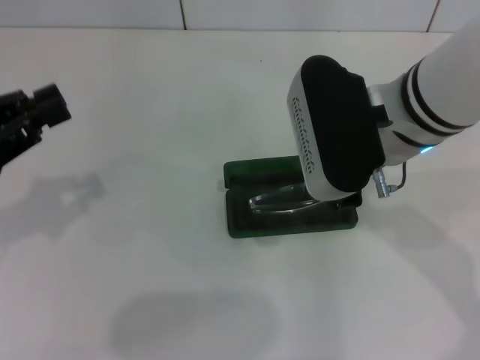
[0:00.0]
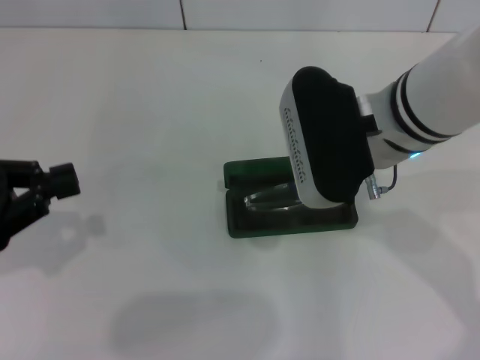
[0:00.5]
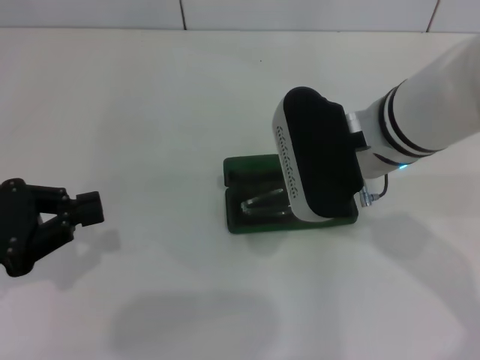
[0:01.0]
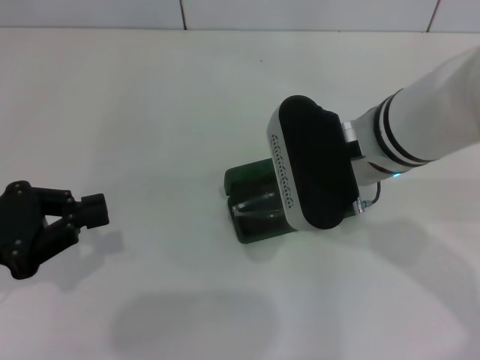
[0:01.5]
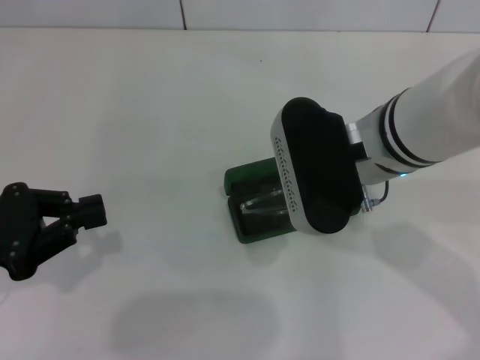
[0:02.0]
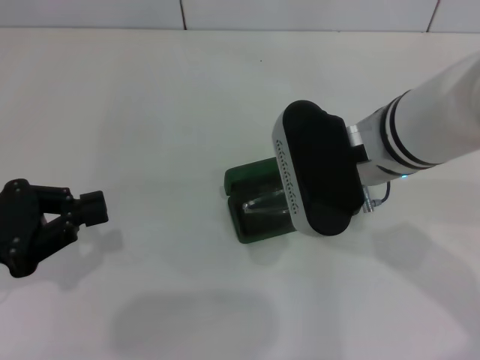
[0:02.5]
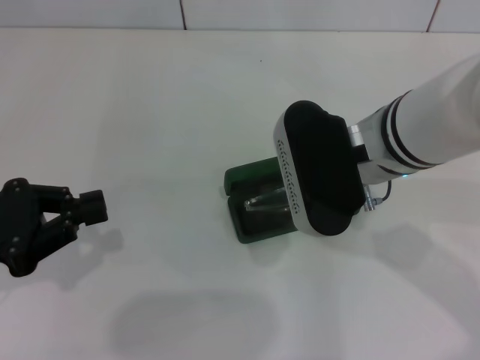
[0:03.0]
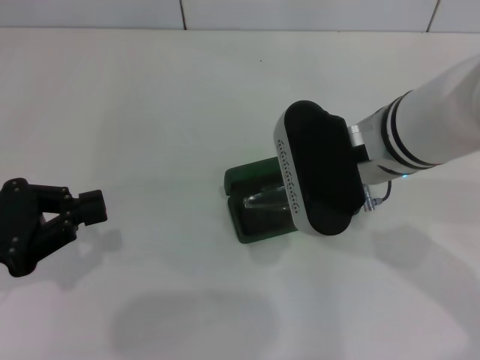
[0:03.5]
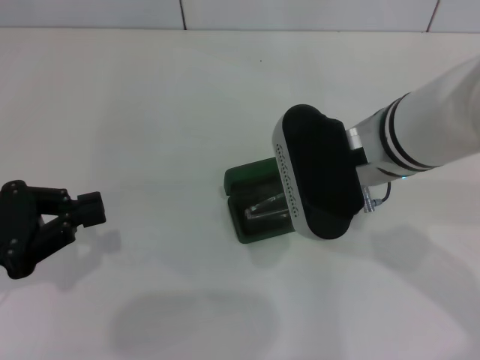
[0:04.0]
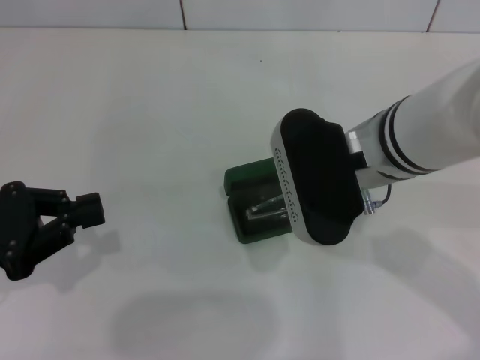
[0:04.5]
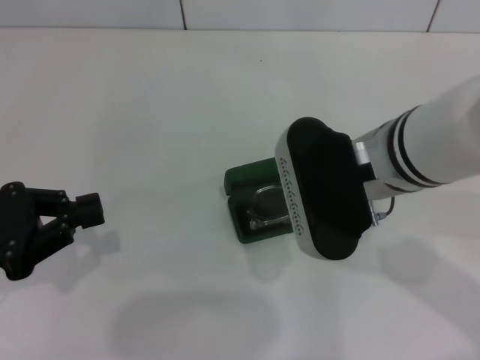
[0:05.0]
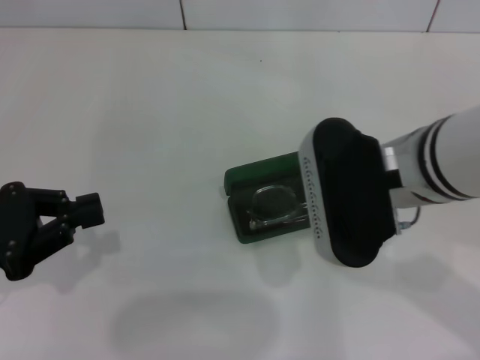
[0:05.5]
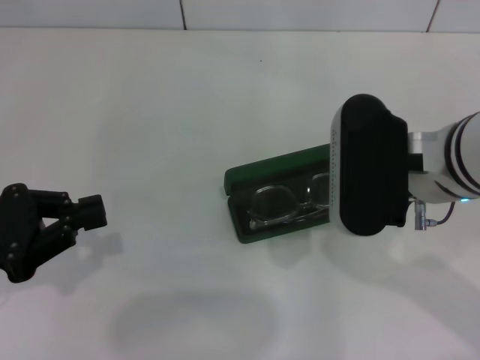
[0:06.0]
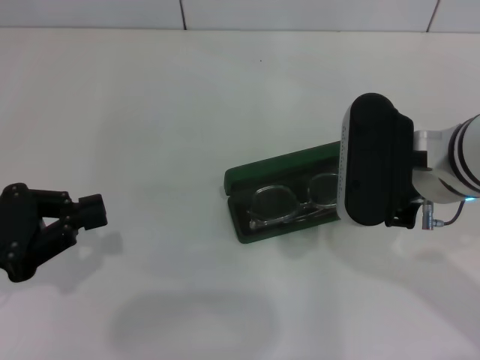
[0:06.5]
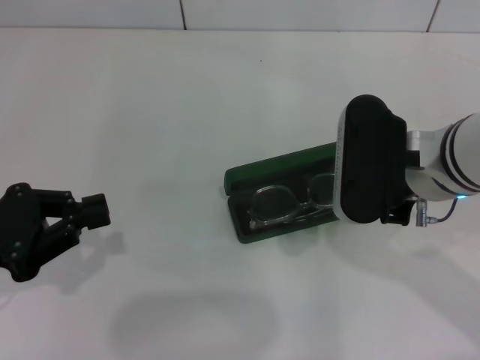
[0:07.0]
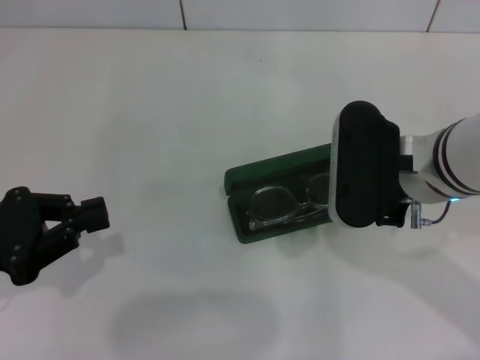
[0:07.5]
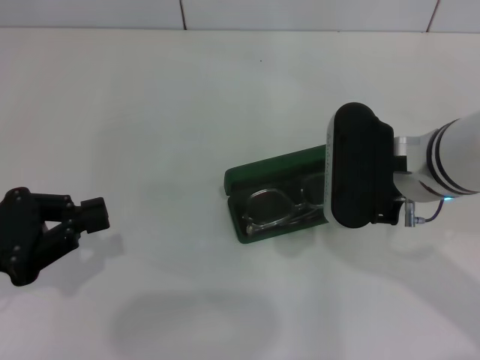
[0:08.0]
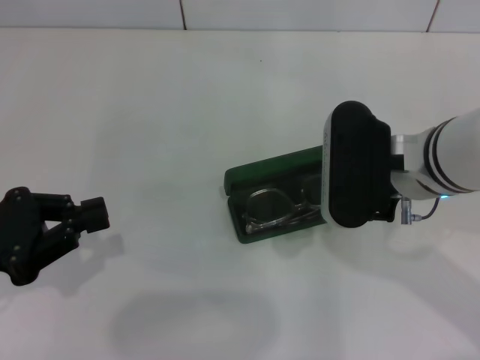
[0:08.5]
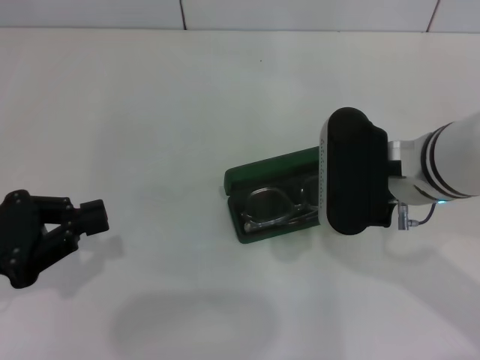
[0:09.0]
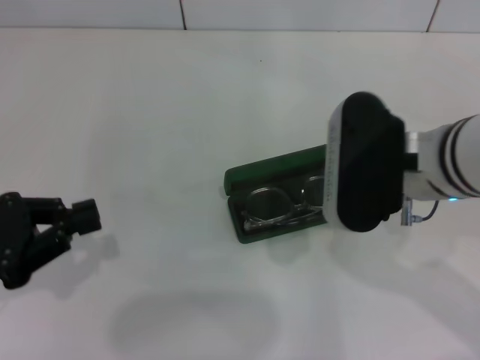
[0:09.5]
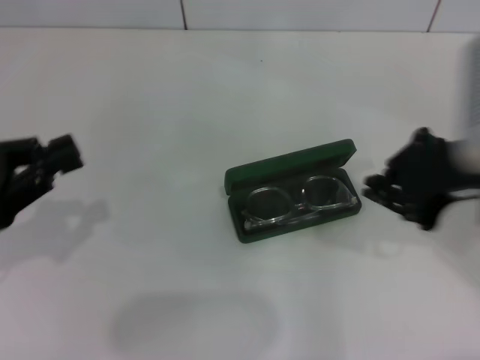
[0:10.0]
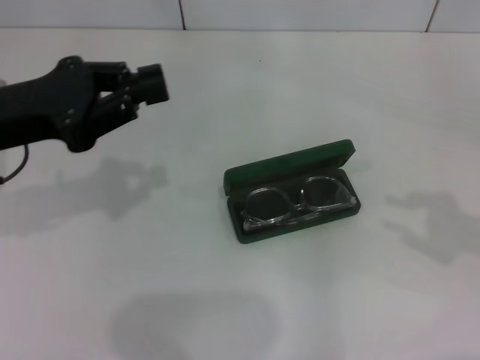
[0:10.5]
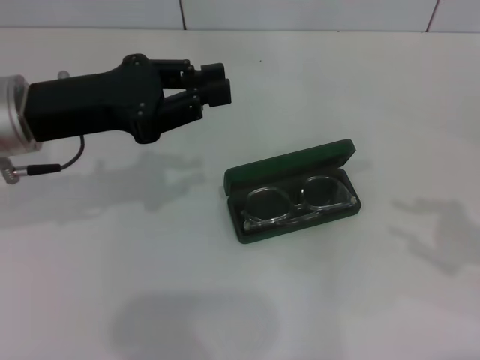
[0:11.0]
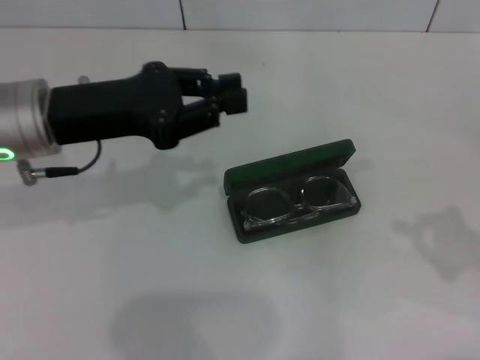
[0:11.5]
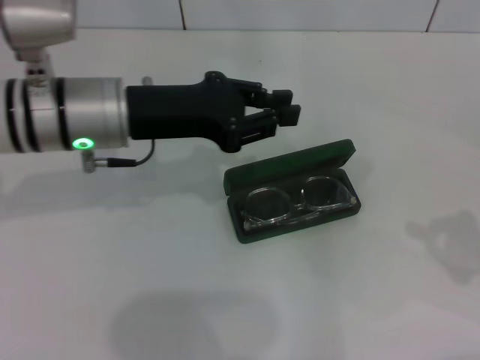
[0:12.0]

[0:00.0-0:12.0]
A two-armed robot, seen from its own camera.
Step, 0:00.0 to 0:09.0: Put the glasses into the case with your right hand.
0:00.0 to 0:02.0: The grippers move only a little.
0:02.0 to 0:04.0: The two grippers keep their place.
0:04.0 to 0:06.0: The grippers stay close to where they were, moving slightly.
0:06.0 to 0:08.0: The grippers make only small movements.
0:08.0 to 0:10.0: The right gripper heads upward and to the right, covering approximately 10 cm.
0:10.0 to 0:12.0: The right gripper heads to the right and downward, covering some 20 cm, and opens, then closes again. Meanwhile the left gripper moves to the right and forward, approximately 20 cm.

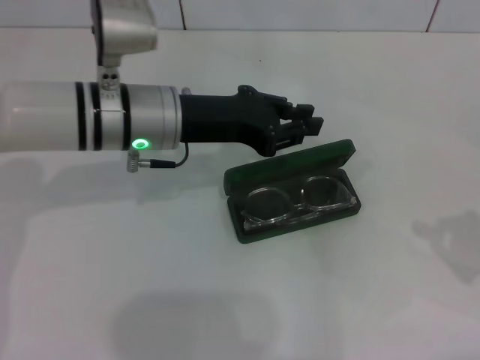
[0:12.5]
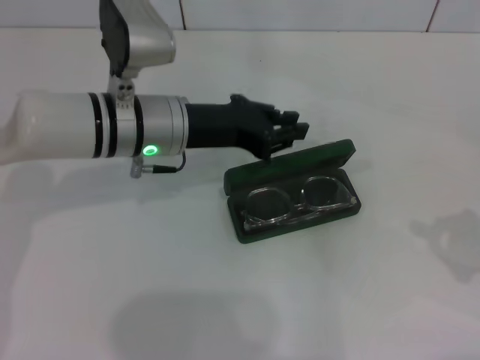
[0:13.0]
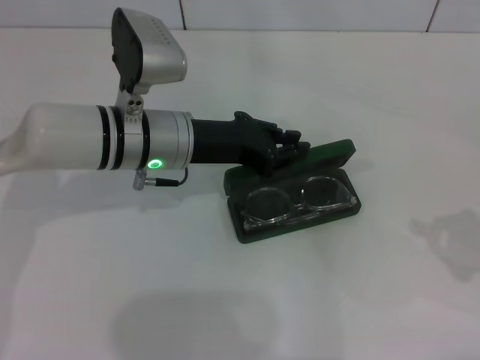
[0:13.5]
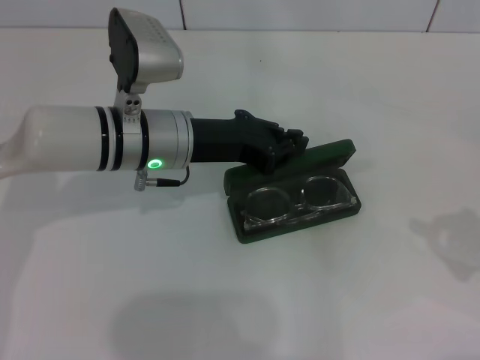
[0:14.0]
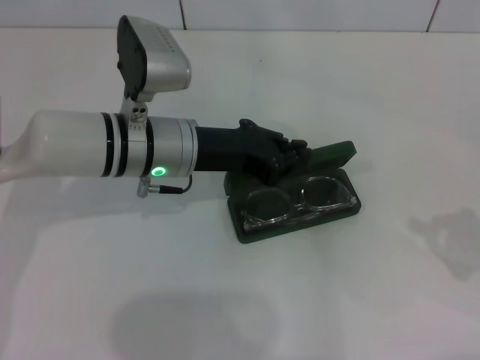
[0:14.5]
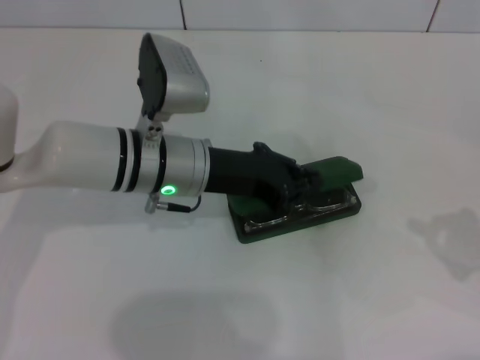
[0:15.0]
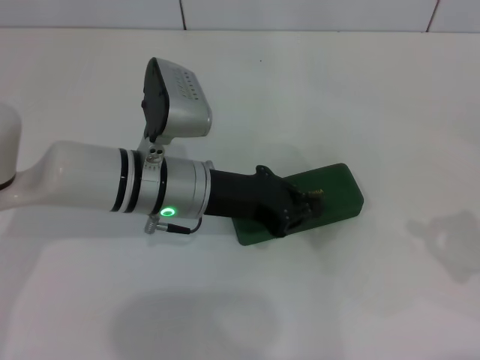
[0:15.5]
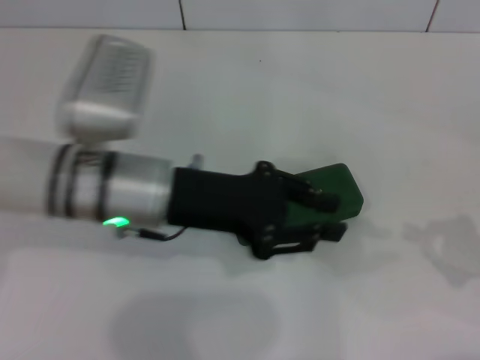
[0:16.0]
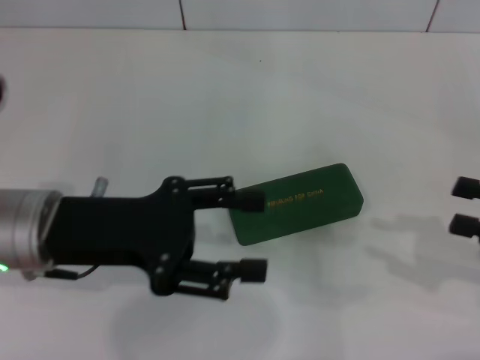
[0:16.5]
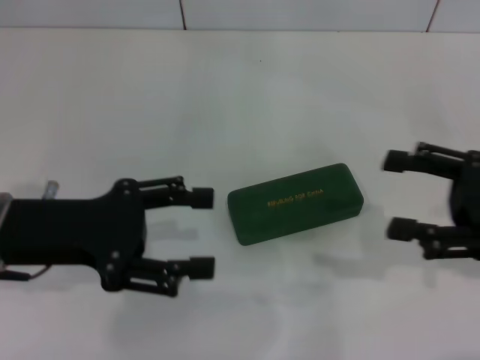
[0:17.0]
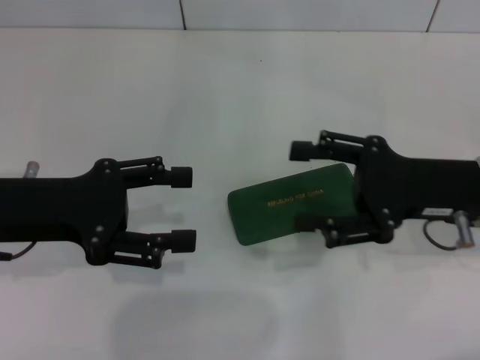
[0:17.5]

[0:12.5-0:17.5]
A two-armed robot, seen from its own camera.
Step, 0:12.5 to 0:15.0: Close the glasses case with your left hand.
0:12.5 to 0:15.0: The grippers move only a little.
0:15.0 to 0:17.5: The right gripper heads to the left and forward, covering approximately 15 cm, and opens up. Meanwhile the left gripper is displaced to the left and backward by approximately 15 cm, and opens its fingers.

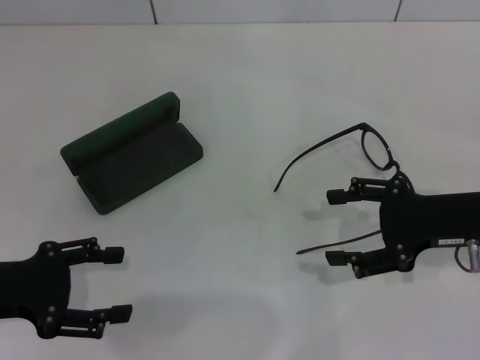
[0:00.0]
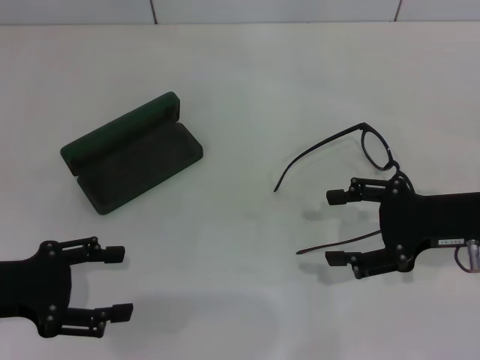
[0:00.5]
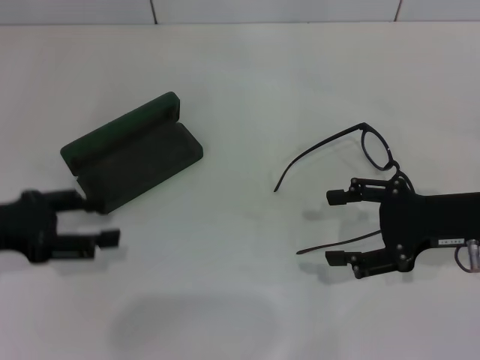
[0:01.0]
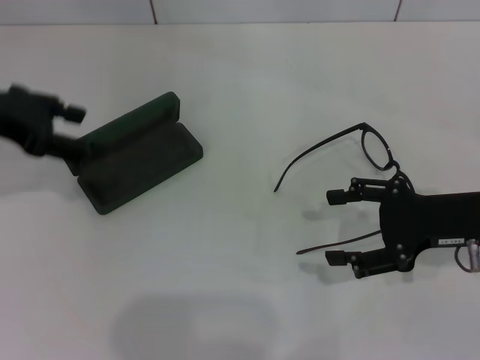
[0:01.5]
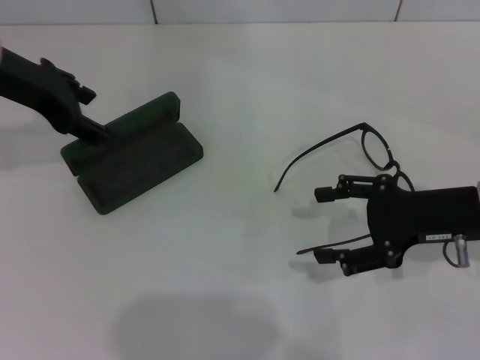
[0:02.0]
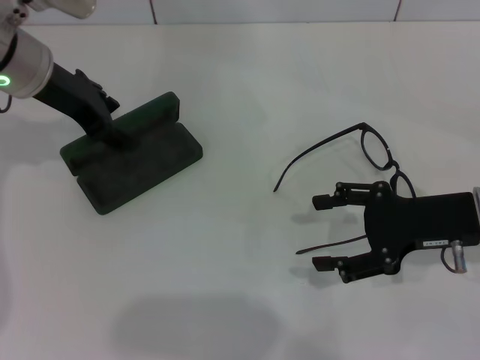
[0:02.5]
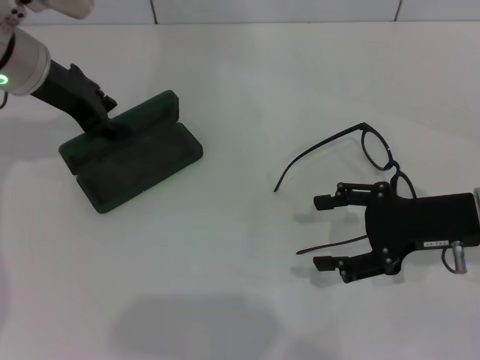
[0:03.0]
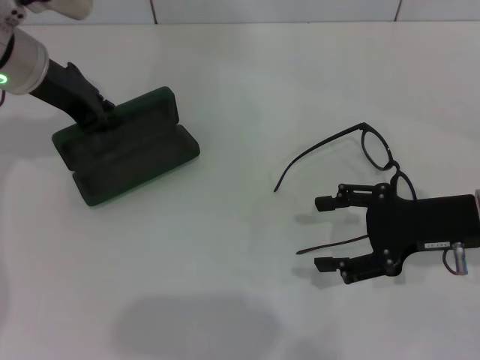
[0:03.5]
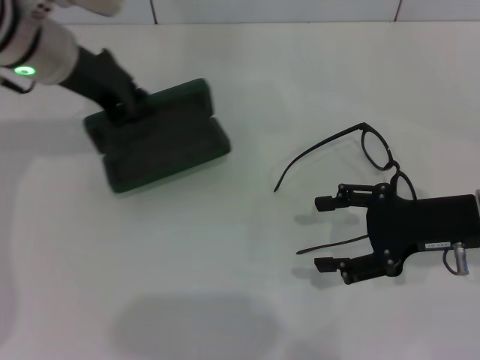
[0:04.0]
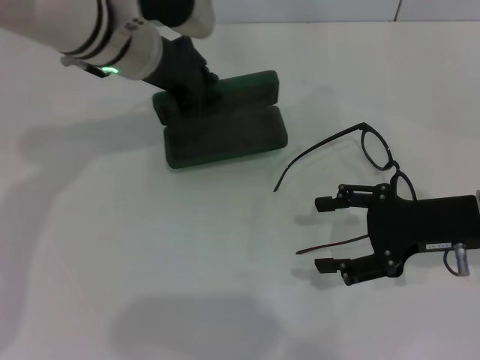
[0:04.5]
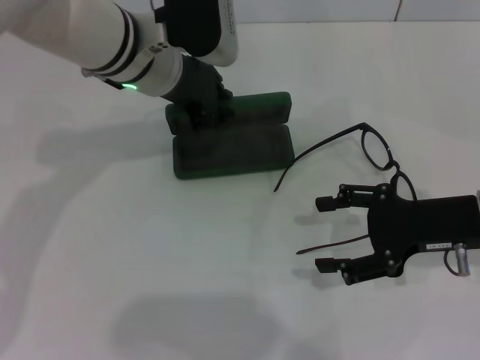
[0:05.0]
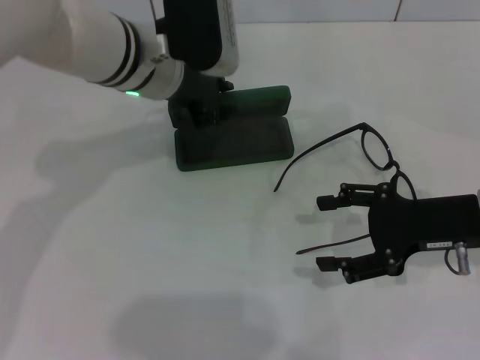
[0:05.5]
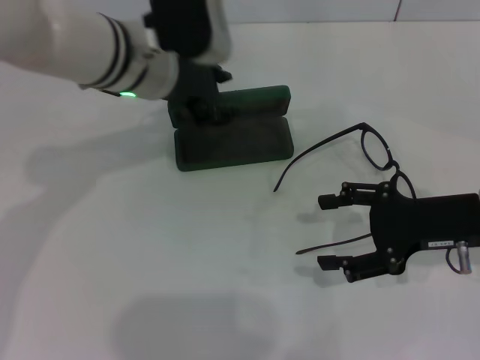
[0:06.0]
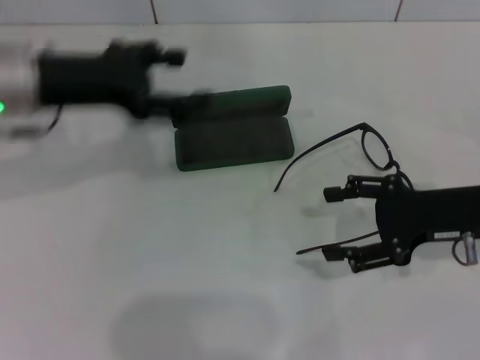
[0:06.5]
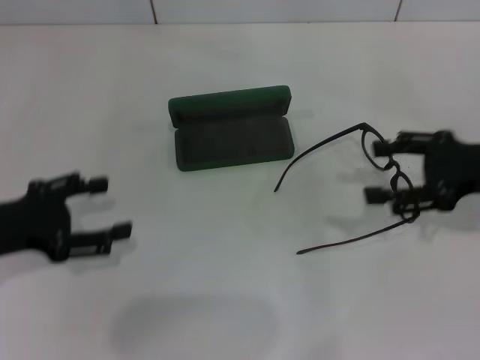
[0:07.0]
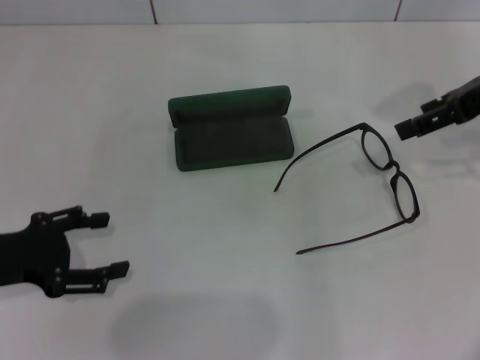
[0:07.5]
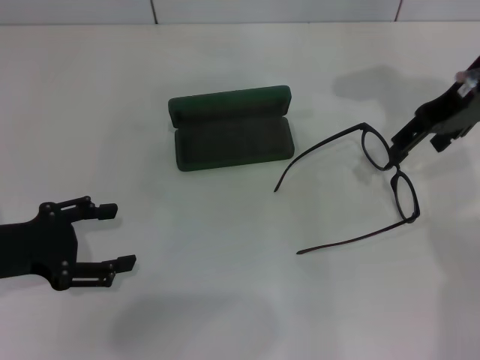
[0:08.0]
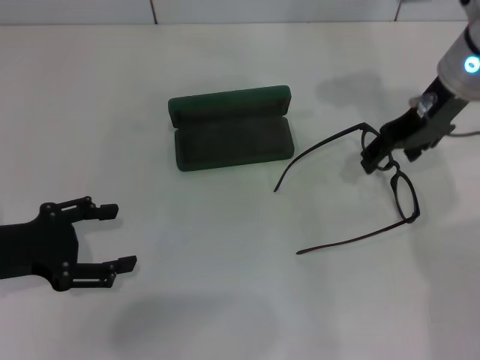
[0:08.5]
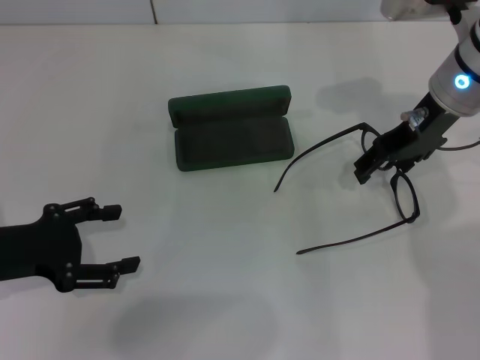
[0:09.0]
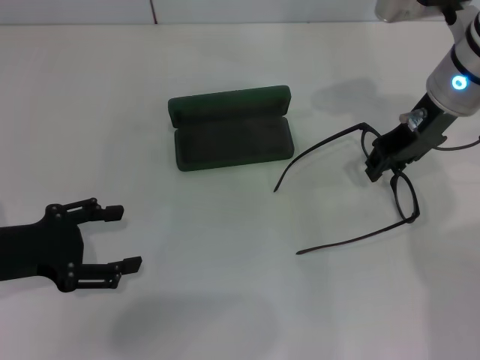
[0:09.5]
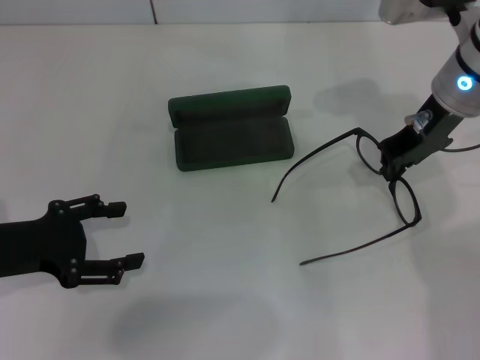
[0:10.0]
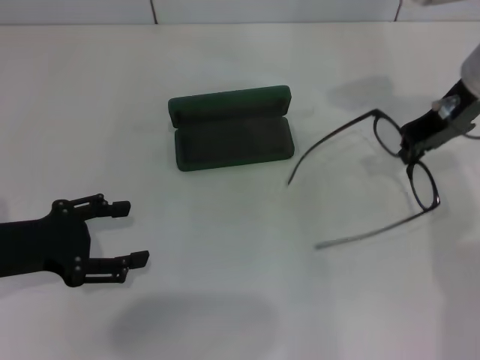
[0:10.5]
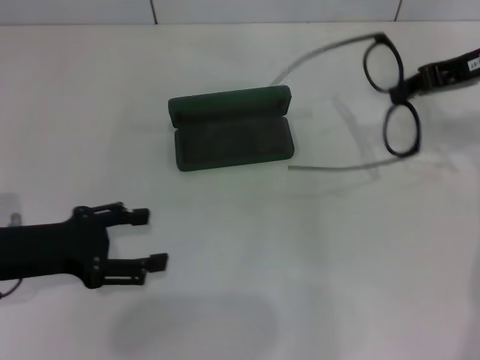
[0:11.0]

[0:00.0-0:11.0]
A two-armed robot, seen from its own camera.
Step, 0:00.0 to 0:03.0: Grab the glasses case with your left hand.
Step, 0:03.5 to 0:05.0: Place the glasses case in the center of the table with your left hand.
Step, 0:06.0 to 0:09.5: Grab the eyeglass frame with your right hand.
0:00.0 to 0:02.0: The left gripper is displaced forward and upward by roughly 20 cm.
0:02.0 to 0:03.5: The left gripper closes its fingers.
0:03.5 to 0:05.5: The left gripper goes approximately 10 cm to the right.
0:05.5 to 0:07.5: The left gripper heads to the left and backward, covering some 25 cm, and opens up; the right gripper moves upward and forward, some 15 cm.
0:07.5 to 0:09.0: The right gripper moves to the left, approximately 10 cm.
0:09.0 to 0:11.0: The right gripper moves to the right, roughly 10 cm, and closes up.
